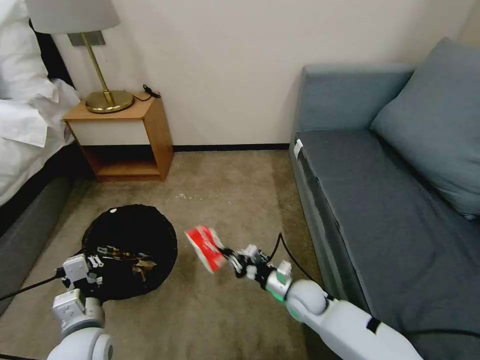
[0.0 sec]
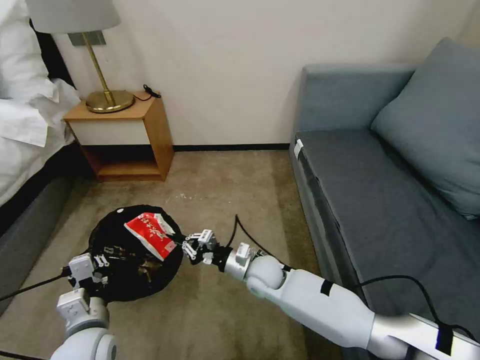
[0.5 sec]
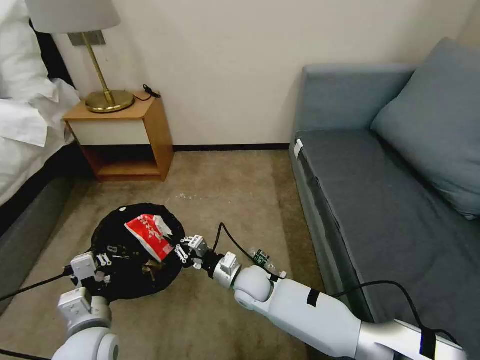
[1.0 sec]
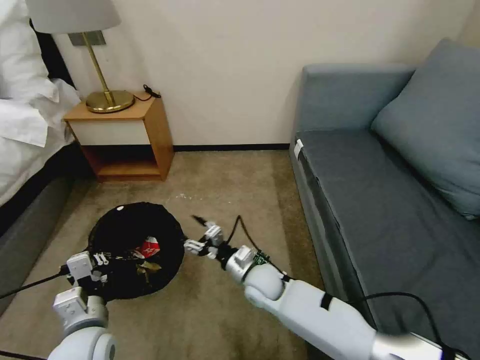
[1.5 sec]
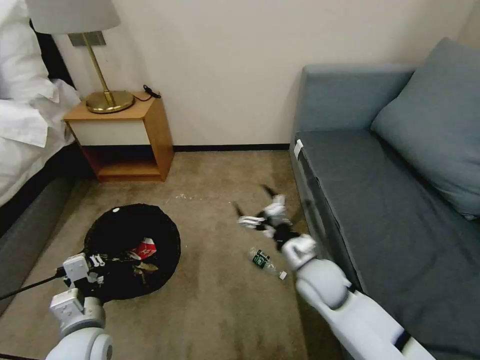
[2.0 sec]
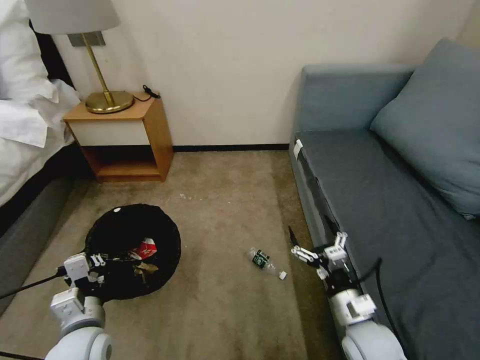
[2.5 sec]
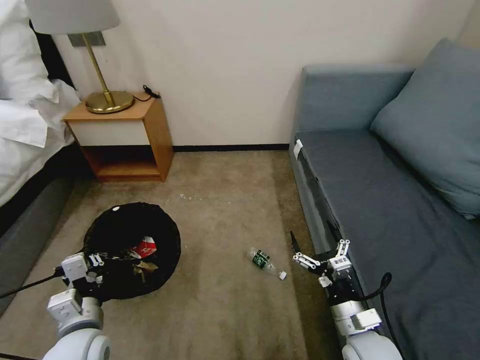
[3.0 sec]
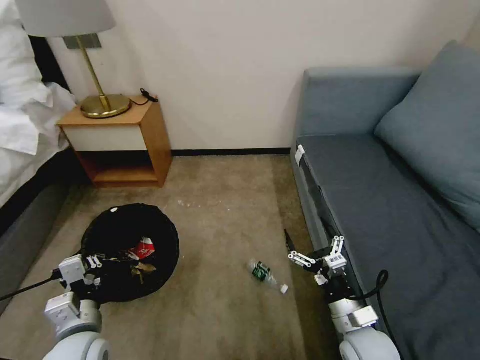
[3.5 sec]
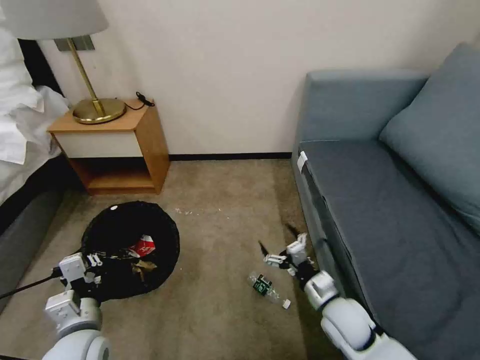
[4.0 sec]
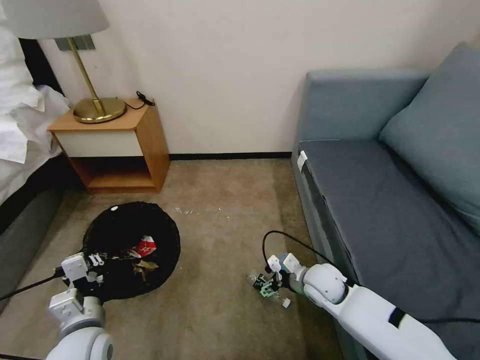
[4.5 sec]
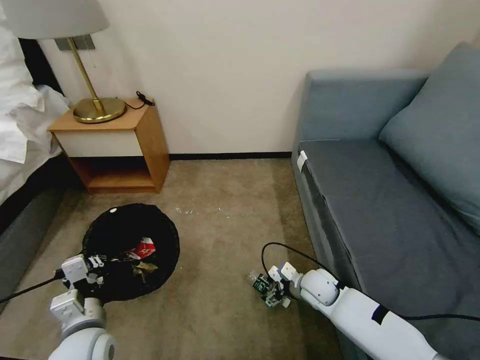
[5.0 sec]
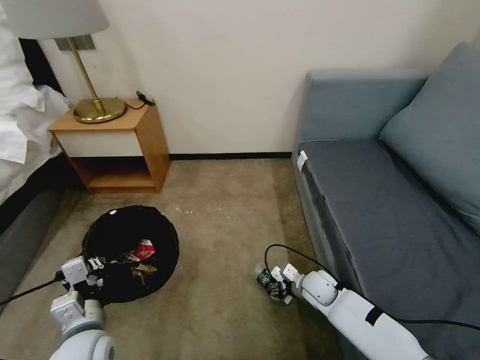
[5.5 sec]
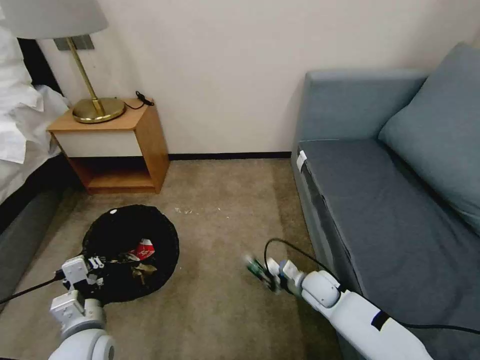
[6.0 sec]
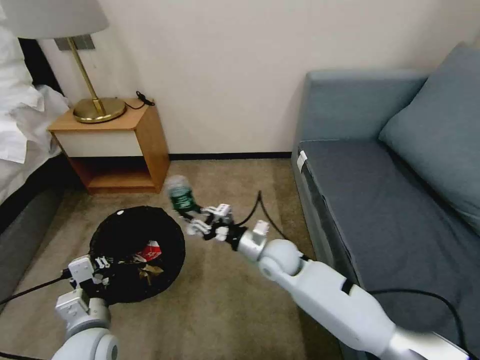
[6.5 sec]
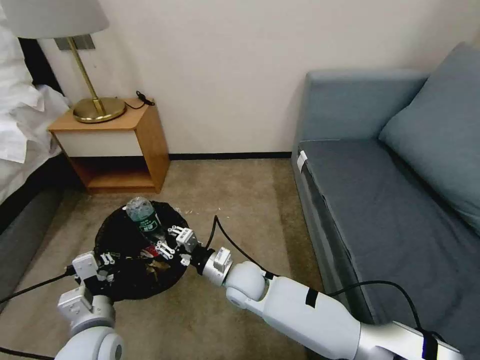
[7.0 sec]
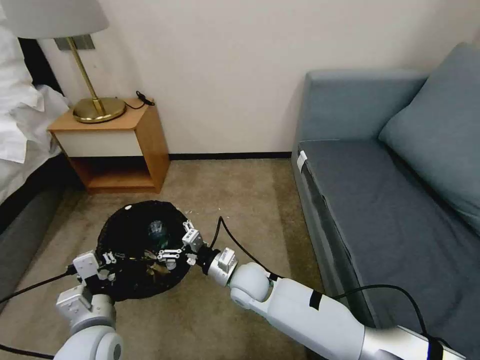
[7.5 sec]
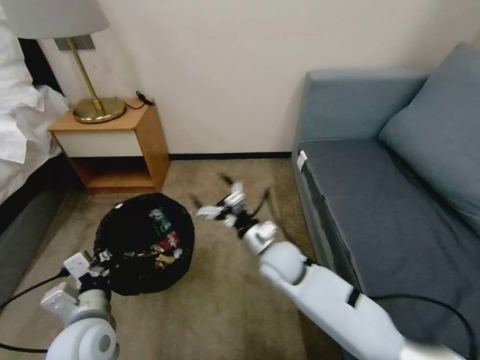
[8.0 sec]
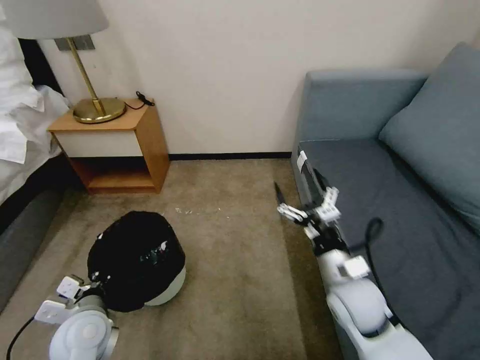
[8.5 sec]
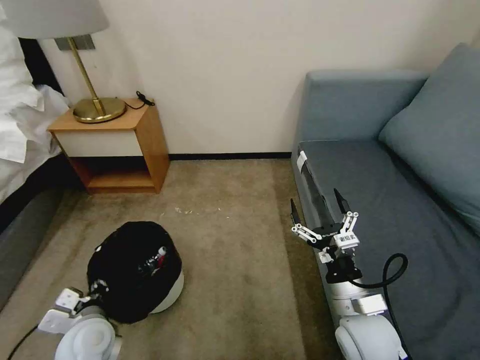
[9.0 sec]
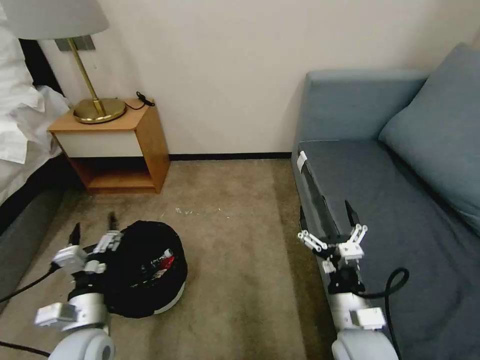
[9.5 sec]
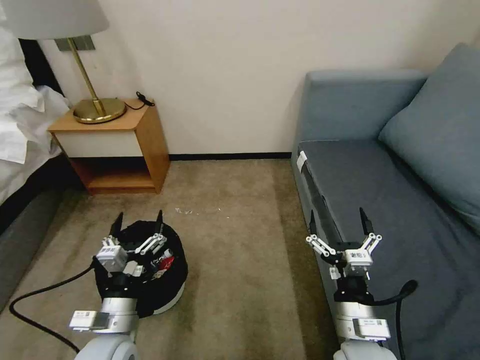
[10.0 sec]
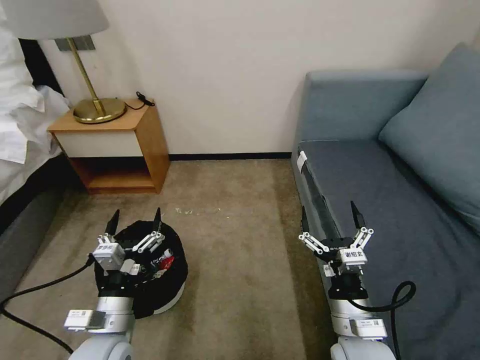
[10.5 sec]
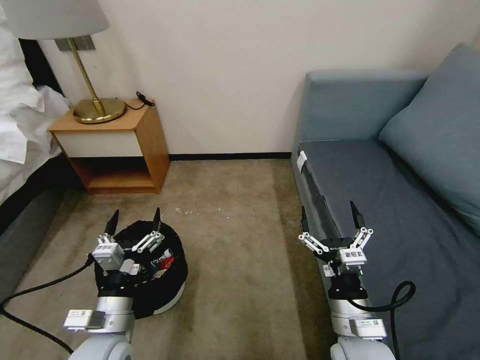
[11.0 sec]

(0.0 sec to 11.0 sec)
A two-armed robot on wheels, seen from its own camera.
Task of the whole recording: Pick up the trash bin, then pick up the garbage on the floor and place it into the trash bin.
0.0 sec - 2.0 sec: The right gripper moves upward, about 10 cm, travels to the left and back again, some 10 cm each way, and opens its fingers.
2.0 sec - 3.5 sec: The right gripper heads backward and to the right, covering approximately 15 cm.
3.5 sec - 5.5 sec: The right gripper heads forward and downward, covering approximately 20 cm, and closes its fingers.
5.5 sec - 7.5 sec: The right gripper is displaced to the left and upward by roughly 25 cm, and closes, then opens again.
7.5 sec - 9.0 sec: The right gripper goes roughly 25 cm to the right and backward; the left gripper changes place by approximately 5 cm.
9.0 sec - 11.0 sec: The left gripper moves to the right, some 5 cm, and opens up.

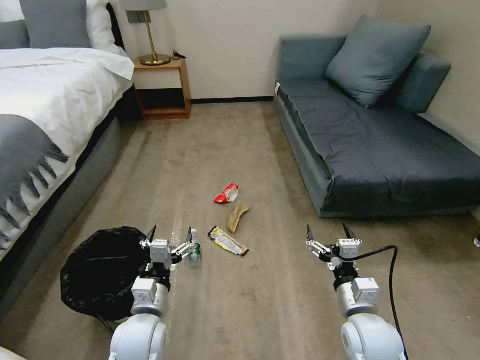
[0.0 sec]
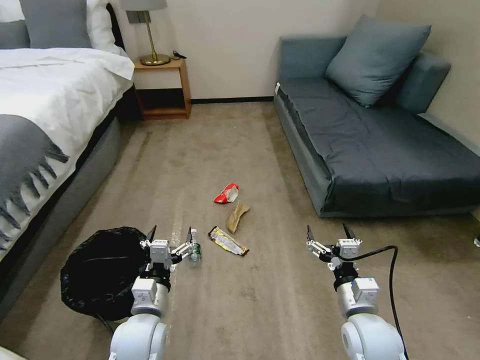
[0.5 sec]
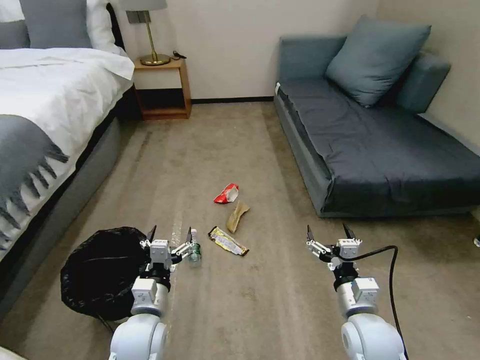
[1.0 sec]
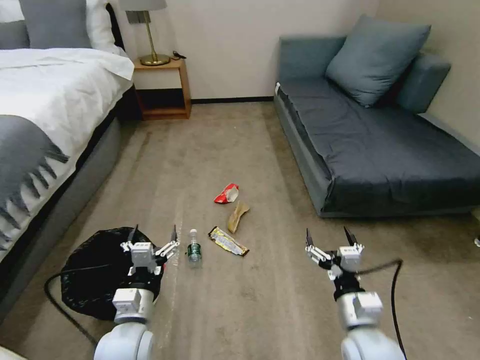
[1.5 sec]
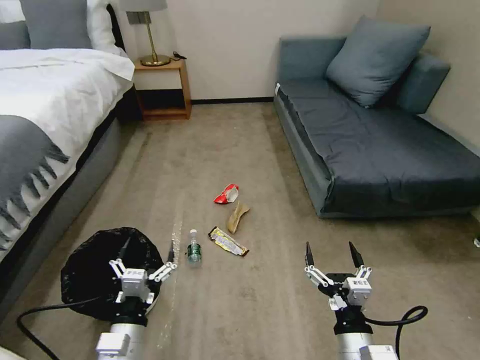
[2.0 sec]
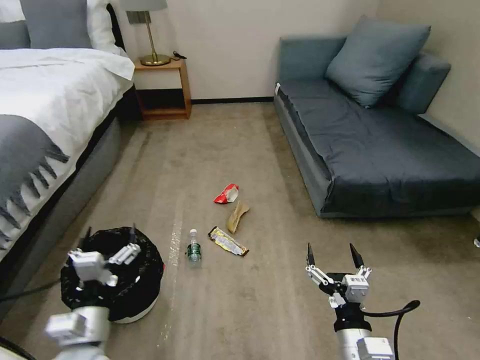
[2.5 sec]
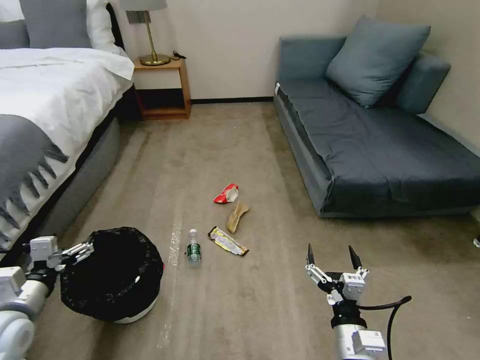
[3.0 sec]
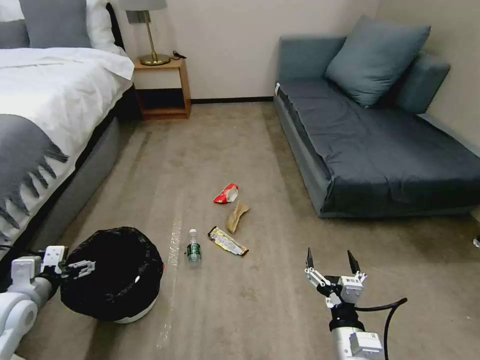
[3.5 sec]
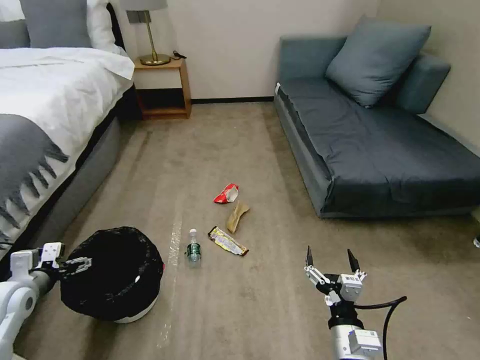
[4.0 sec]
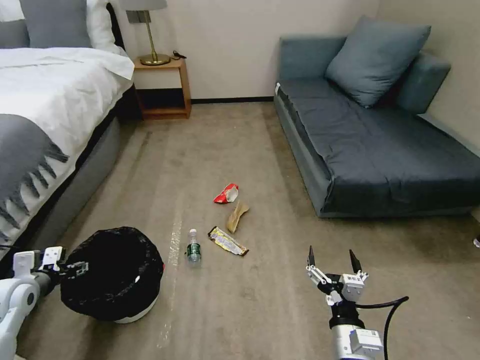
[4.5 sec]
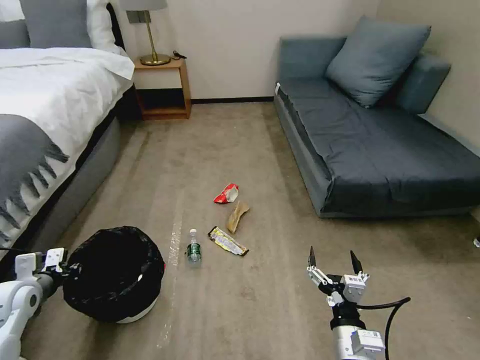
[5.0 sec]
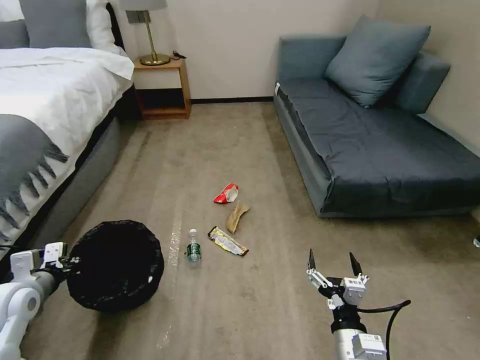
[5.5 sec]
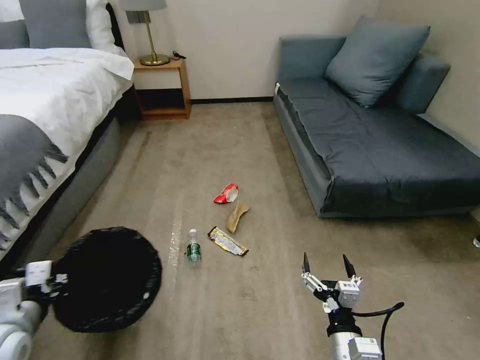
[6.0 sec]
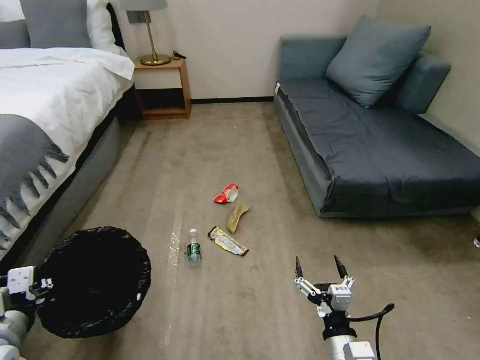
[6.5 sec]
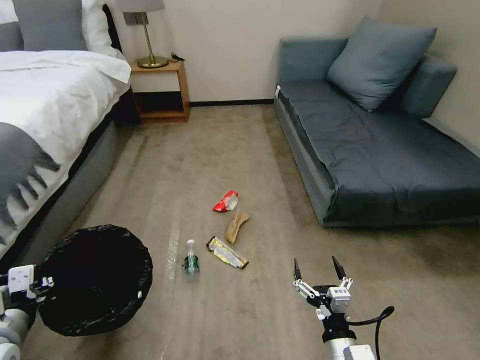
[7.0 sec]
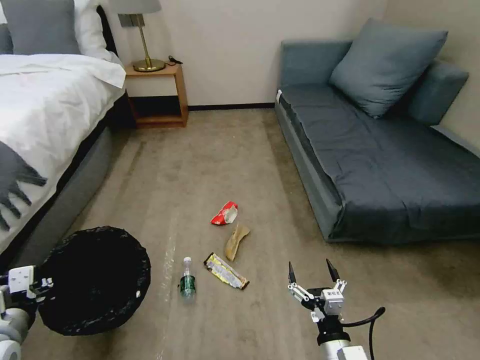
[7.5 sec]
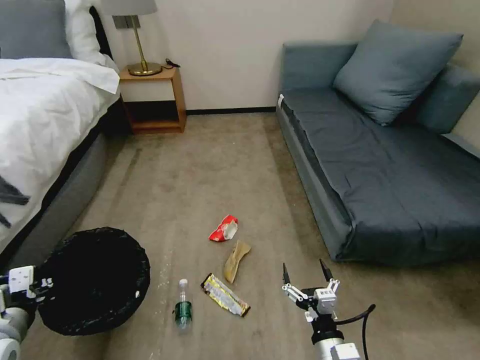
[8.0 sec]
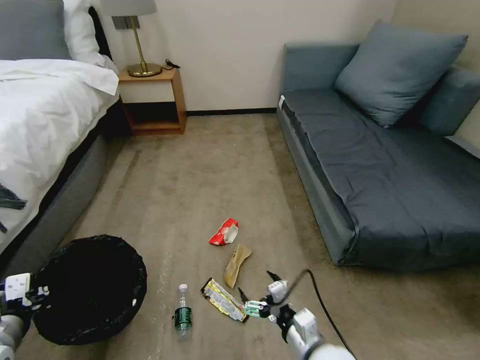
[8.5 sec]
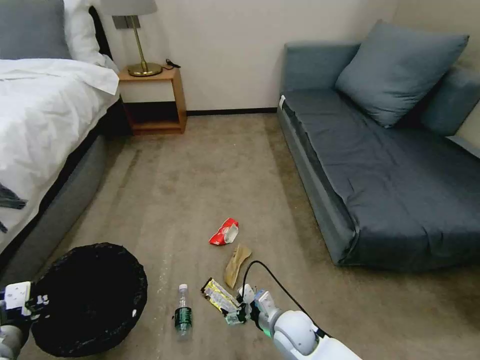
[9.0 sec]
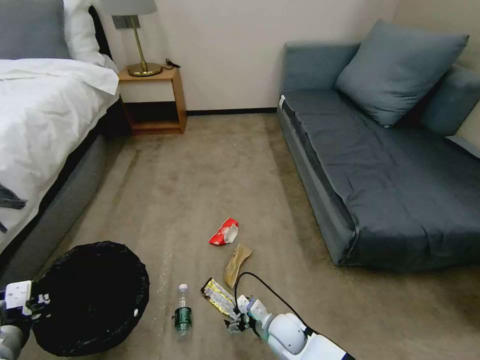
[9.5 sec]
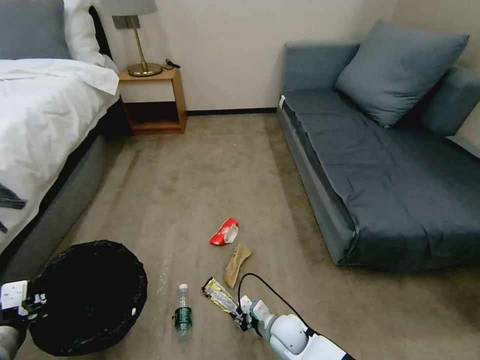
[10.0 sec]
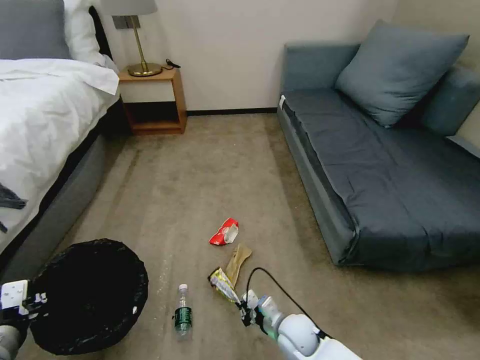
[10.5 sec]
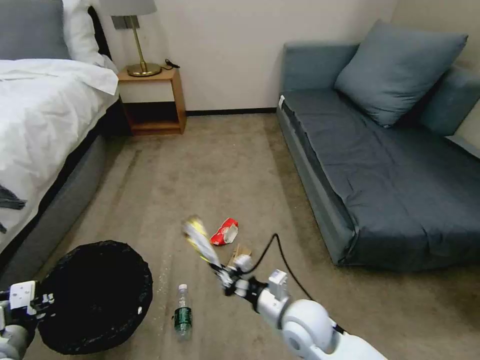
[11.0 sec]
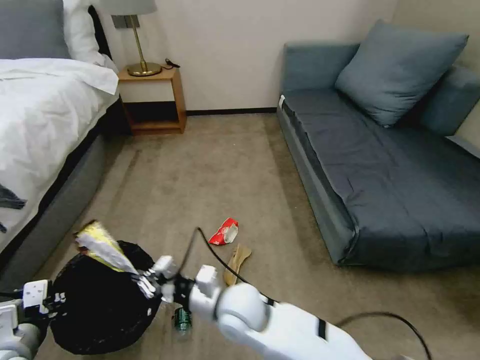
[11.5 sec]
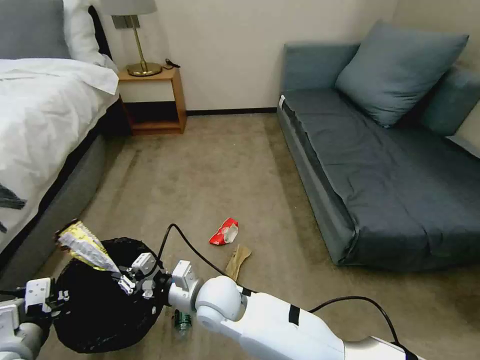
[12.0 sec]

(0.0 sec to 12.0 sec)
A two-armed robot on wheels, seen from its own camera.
Task of the whole recording: Pick up the trash bin, then pick up the garbage on the floor and place it into the trash bin.
2.0 sec - 4.0 sec: The left gripper heads to the left and forward, covering roughly 30 cm.
4.0 sec - 6.0 sec: The left gripper goes roughly 10 cm backward and to the right, and closes up.
8.0 sec - 10.0 sec: The right gripper goes about 20 cm forward, downward and to the left, and closes its fingers.
10.0 sec - 12.0 sec: The right gripper heads upward and to the left, covering about 25 cm.

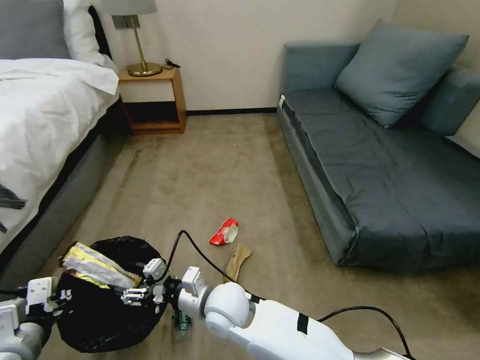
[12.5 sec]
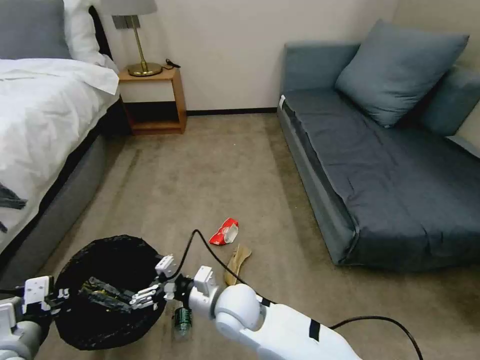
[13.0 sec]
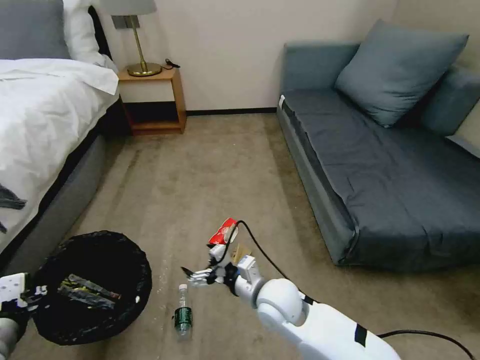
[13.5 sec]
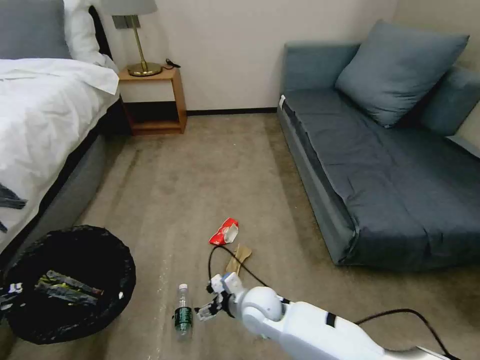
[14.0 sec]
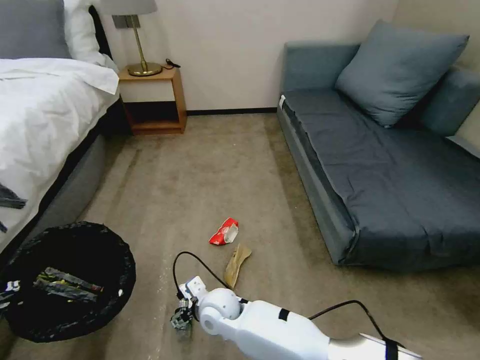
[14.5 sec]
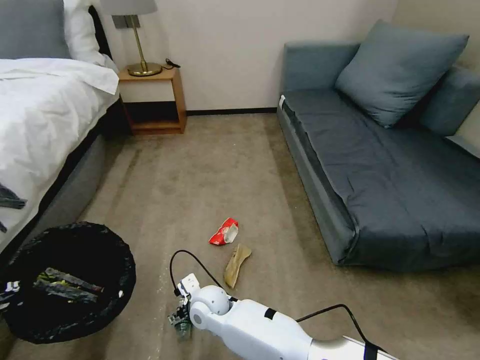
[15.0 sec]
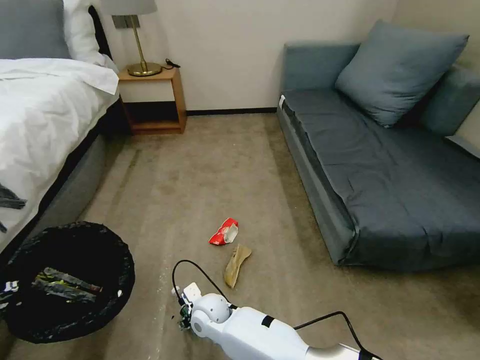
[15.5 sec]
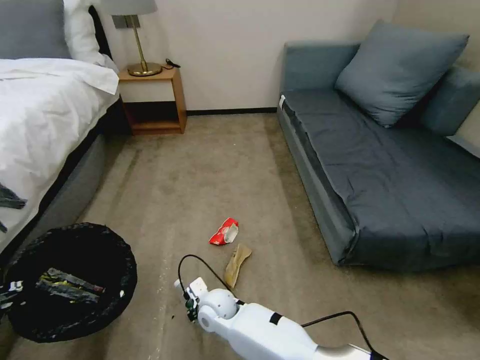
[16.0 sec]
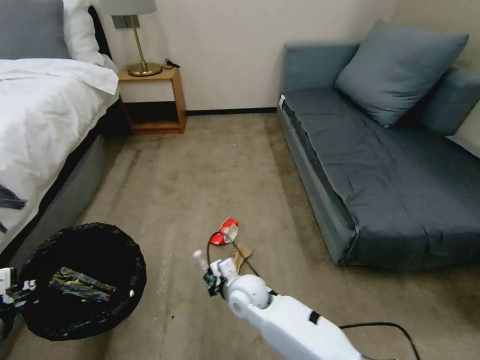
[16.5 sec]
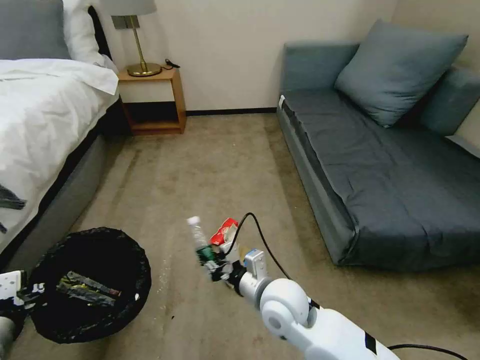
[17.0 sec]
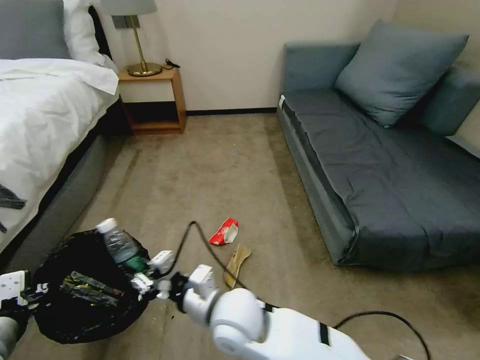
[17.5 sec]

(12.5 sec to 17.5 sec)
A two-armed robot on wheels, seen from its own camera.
Task of the whole recording: Pick up the trash bin, then pick up the garbage on the floor and place it into the trash bin.
12.5 sec - 15.0 sec: The right gripper moves downward, roughly 10 cm, and reaches approximately 10 cm to the right, then returns; the left gripper is displaced to the left by some 5 cm.
15.0 sec - 17.5 sec: The right gripper heads upward, to the right and backward, covering approximately 15 cm, and closes its fingers.
